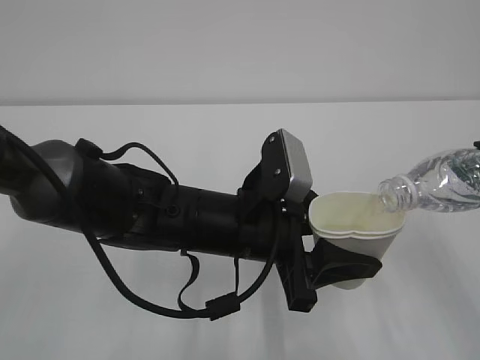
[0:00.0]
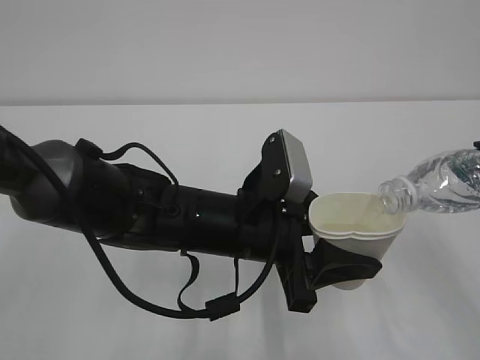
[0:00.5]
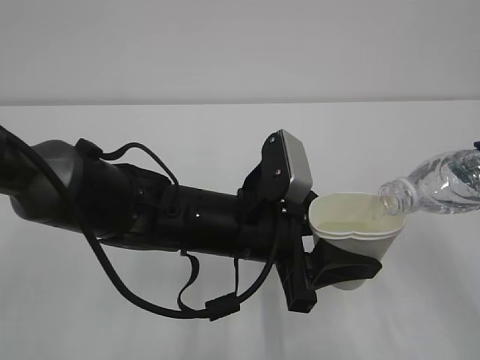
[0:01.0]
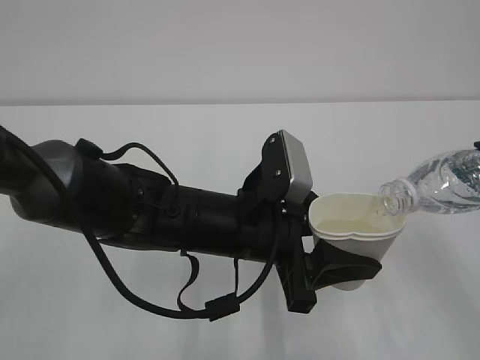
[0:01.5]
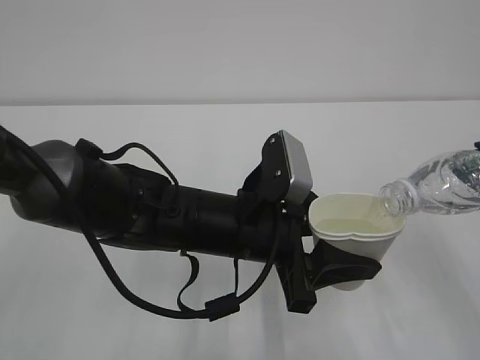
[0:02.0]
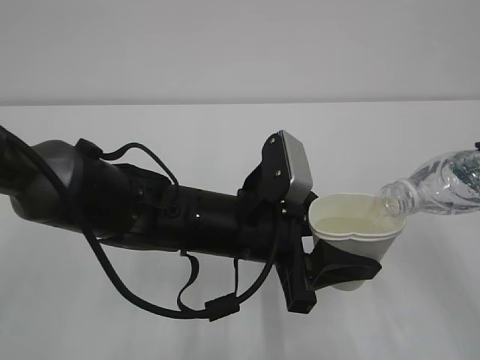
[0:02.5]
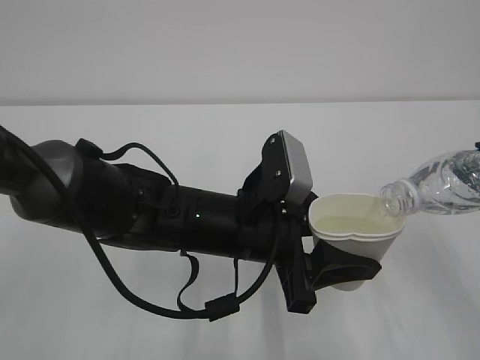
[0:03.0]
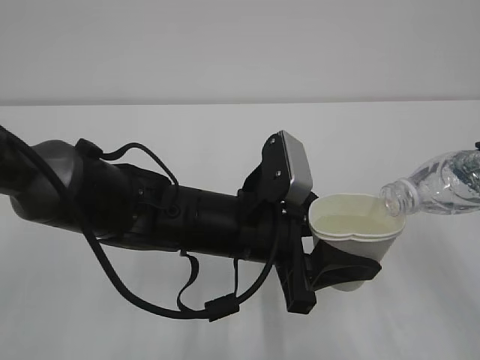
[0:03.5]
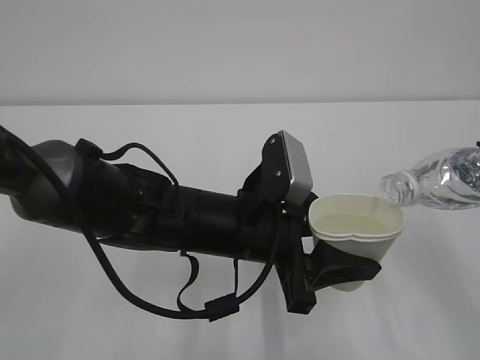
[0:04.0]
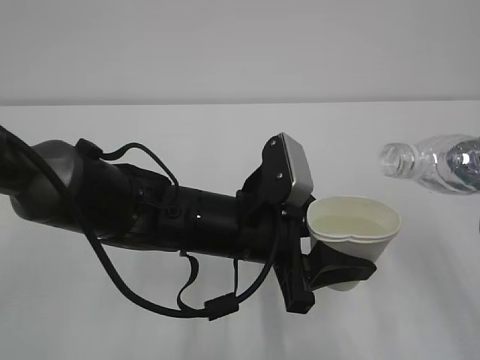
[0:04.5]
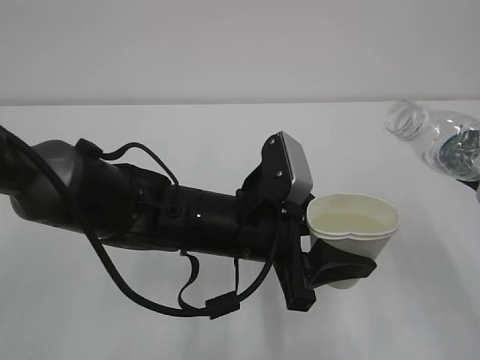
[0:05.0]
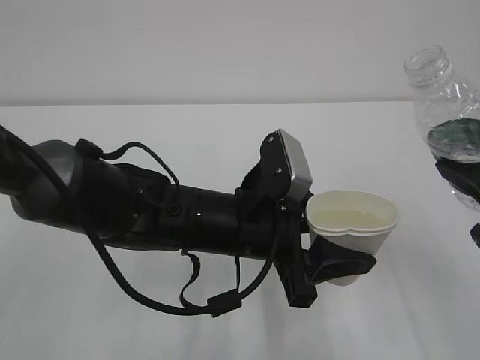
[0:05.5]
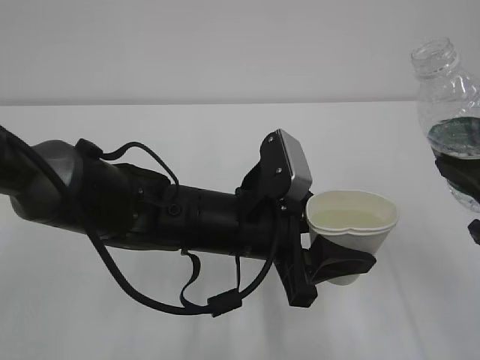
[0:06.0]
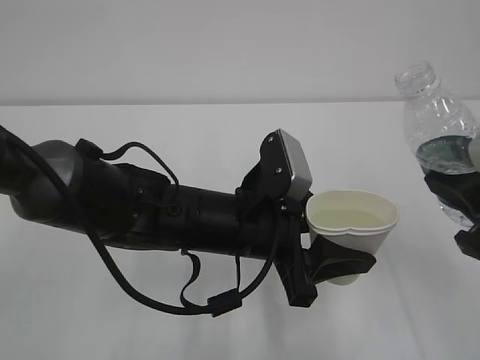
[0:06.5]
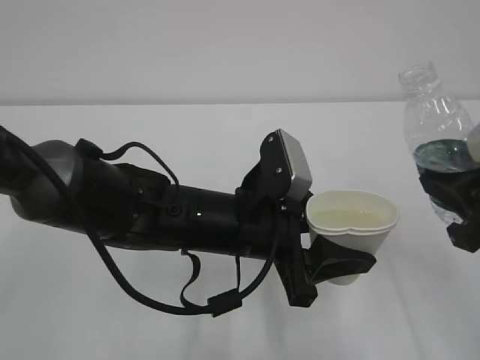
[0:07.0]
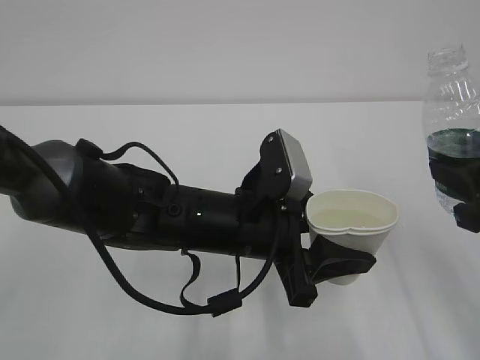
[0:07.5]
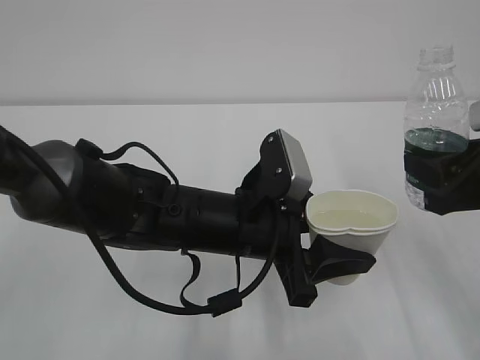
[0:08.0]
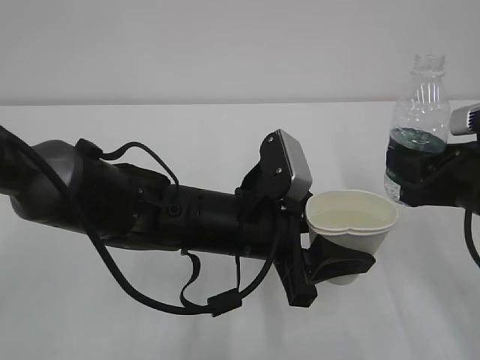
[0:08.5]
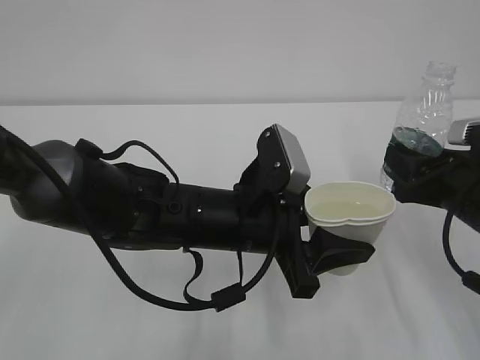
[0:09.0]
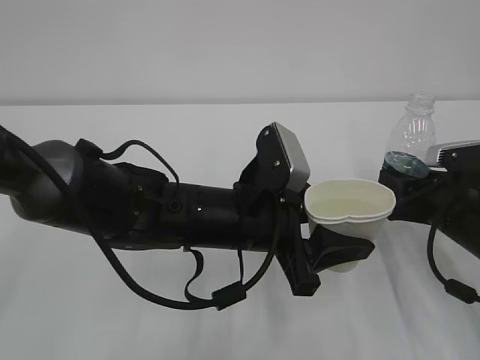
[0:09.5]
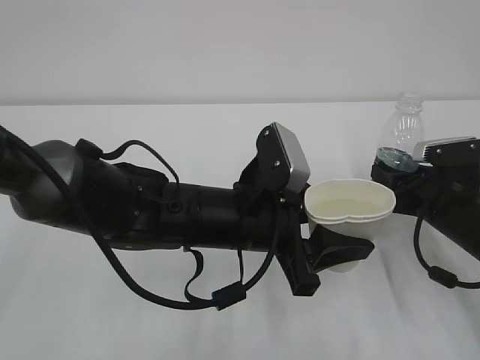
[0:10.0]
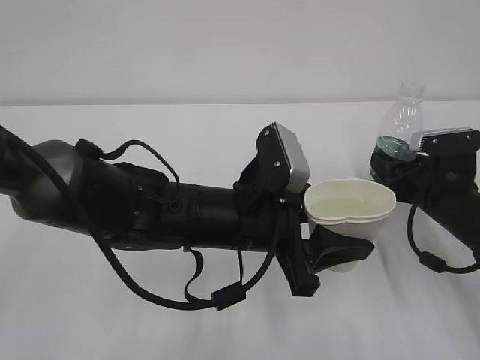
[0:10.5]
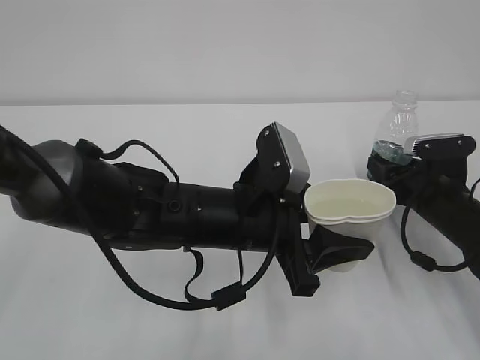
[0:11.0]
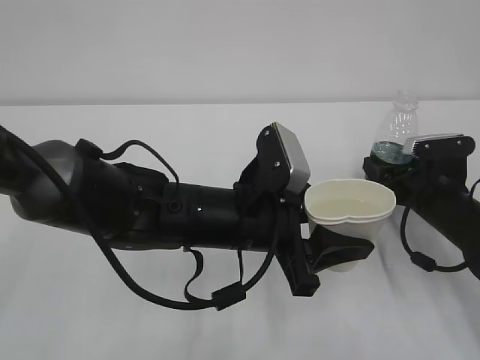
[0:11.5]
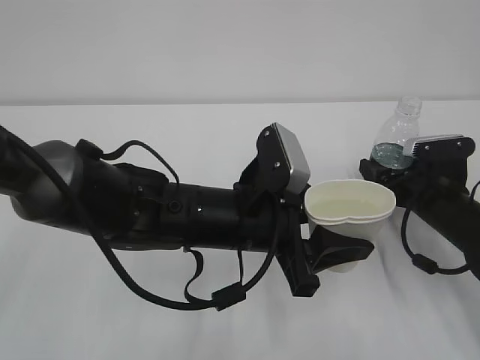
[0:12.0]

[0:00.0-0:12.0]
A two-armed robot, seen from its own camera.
0:00.0 to 0:04.0: Neither gripper changes place.
0:06.0 to 0:08.0: The right gripper heads forward, covering roughly 5 cm.
0:08.0 to 0:10.0: The right gripper travels downward and forward by approximately 15 cm.
0:10.0 to 0:12.0: The right gripper opens its fingers.

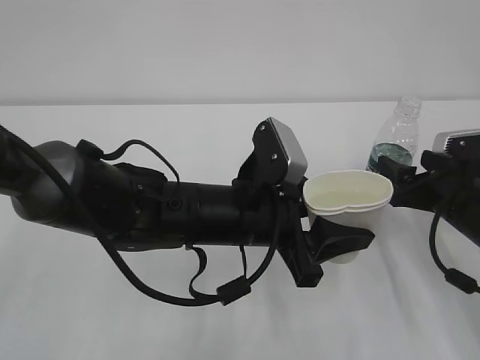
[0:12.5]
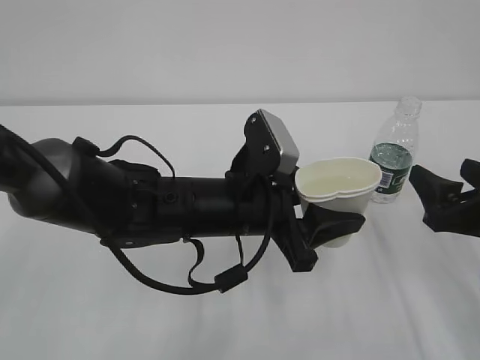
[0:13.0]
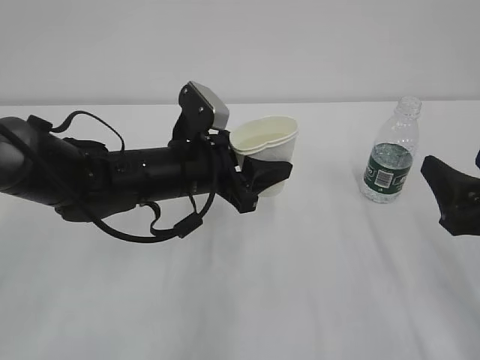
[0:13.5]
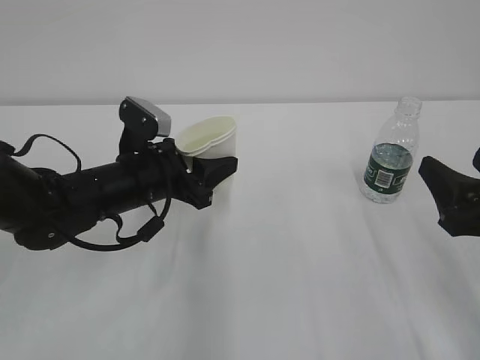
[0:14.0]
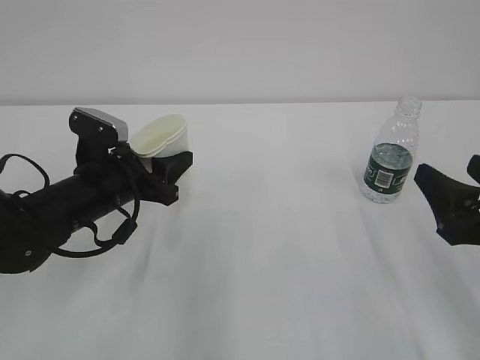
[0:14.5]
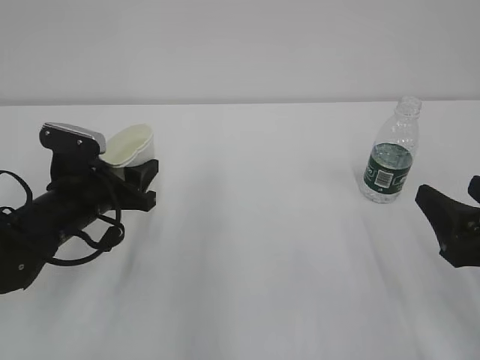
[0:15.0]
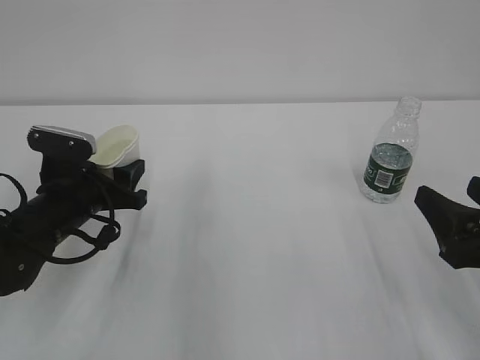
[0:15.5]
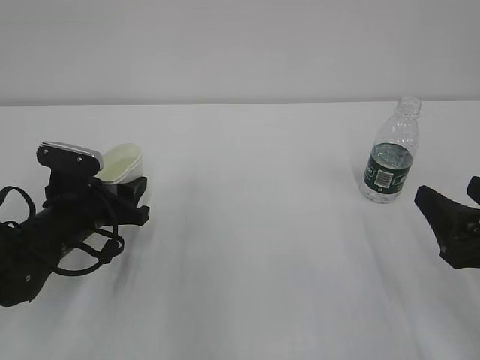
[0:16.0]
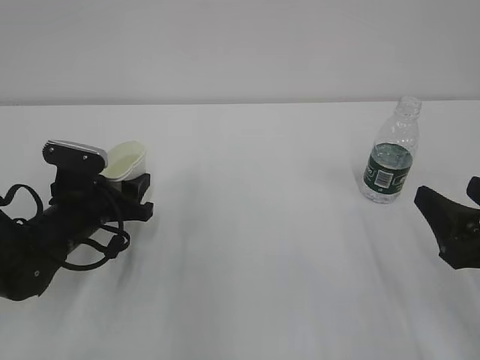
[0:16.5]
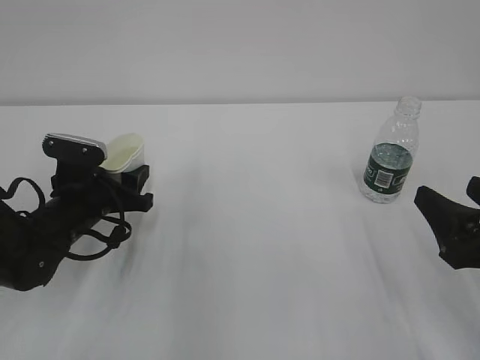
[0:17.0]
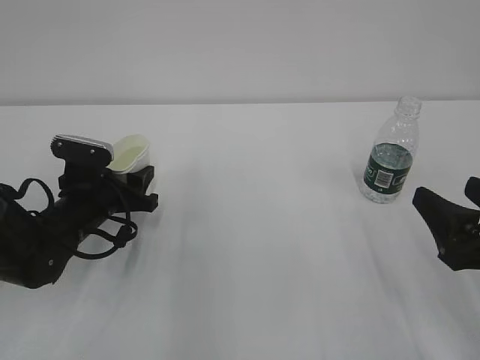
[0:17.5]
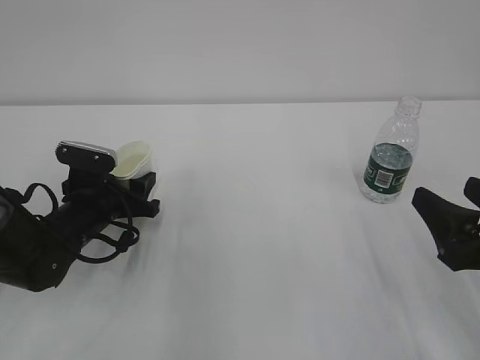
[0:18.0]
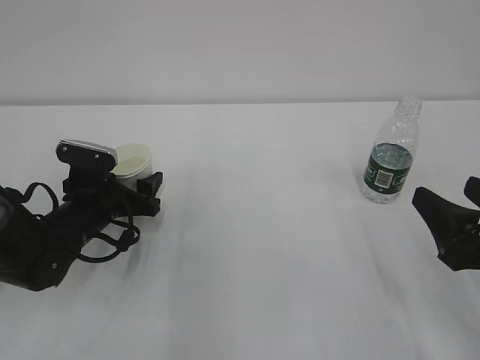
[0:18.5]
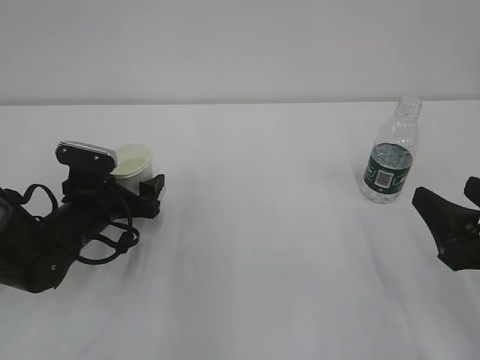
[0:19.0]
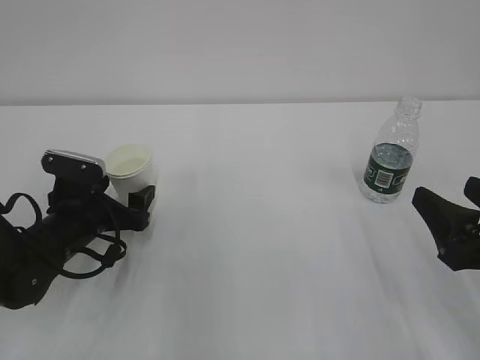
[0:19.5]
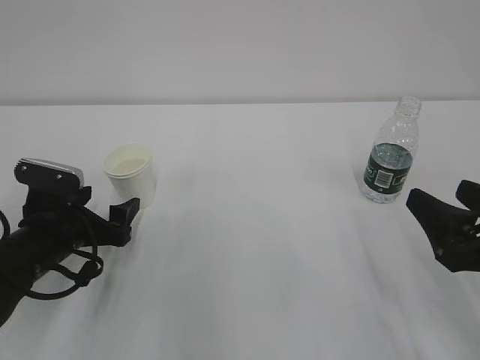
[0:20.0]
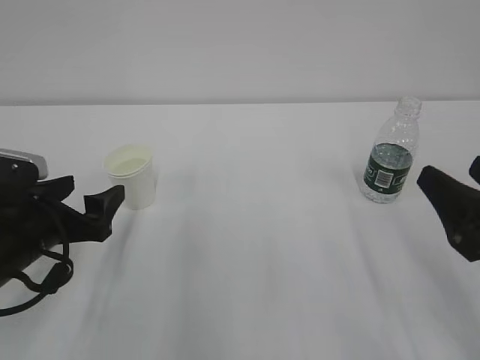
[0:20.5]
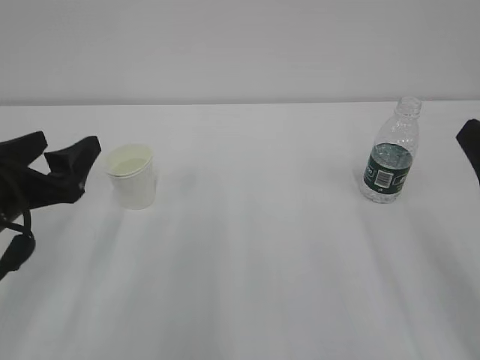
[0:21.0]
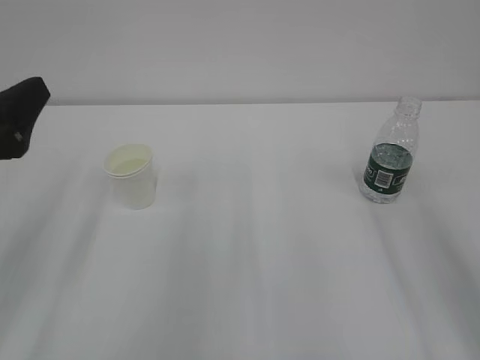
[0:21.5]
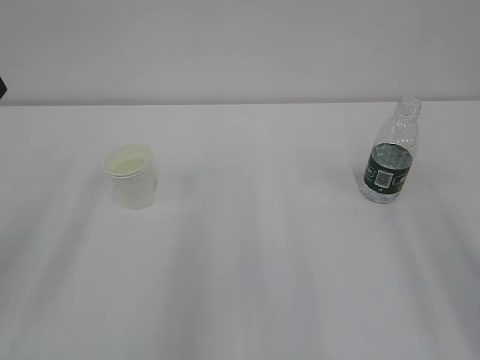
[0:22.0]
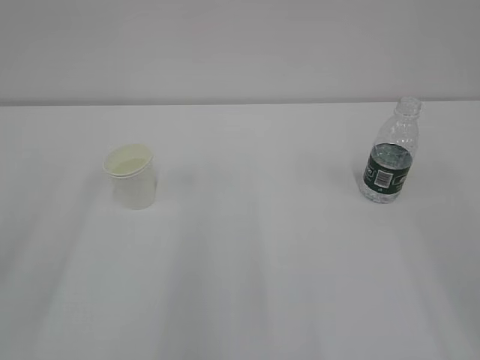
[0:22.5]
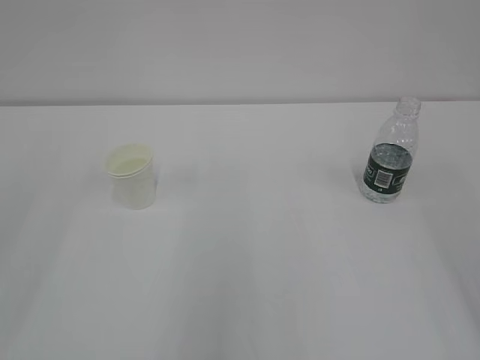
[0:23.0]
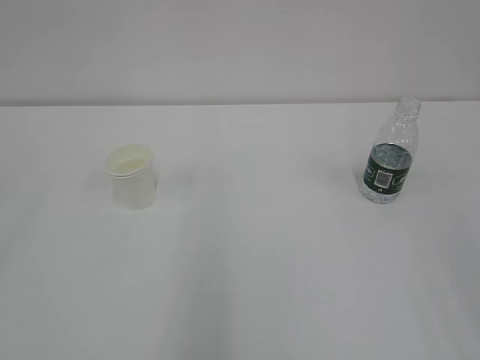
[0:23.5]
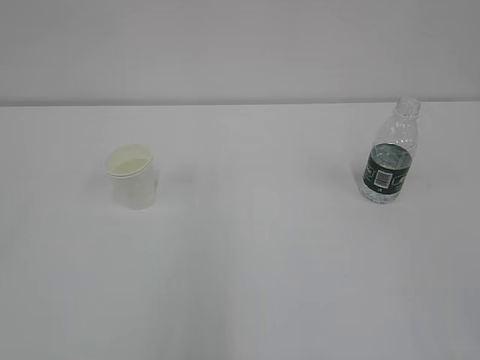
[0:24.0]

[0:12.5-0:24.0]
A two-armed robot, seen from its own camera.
0:12.5 to 0:14.5: The left gripper goes some 20 cm to the left and forward; the right gripper heads backward and upward, covering about 10 cm.
0:14.5 to 0:16.5: The left gripper shifts by roughly 5 cm.
0:16.5 to 0:18.5: The left gripper opens.
0:18.5 to 0:20.0: The left gripper moves backward, about 5 cm.
0:20.0 to 0:22.0: The right gripper goes some 15 cm upward. Meanwhile the left gripper heads upward and backward, covering some 25 cm.
